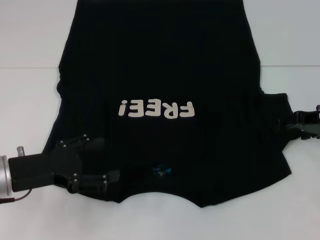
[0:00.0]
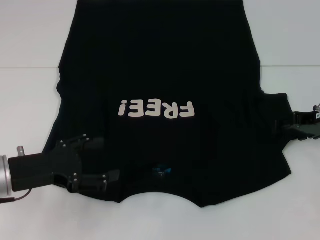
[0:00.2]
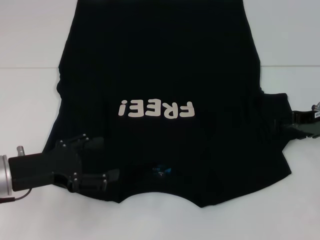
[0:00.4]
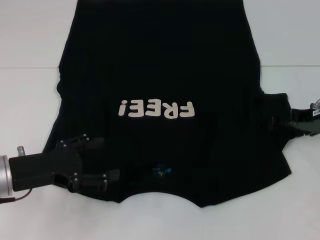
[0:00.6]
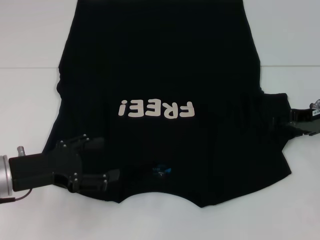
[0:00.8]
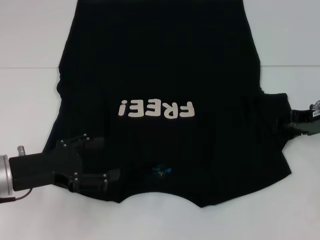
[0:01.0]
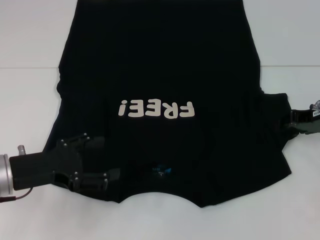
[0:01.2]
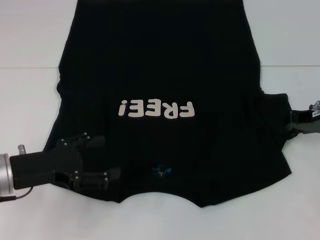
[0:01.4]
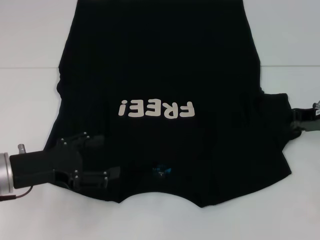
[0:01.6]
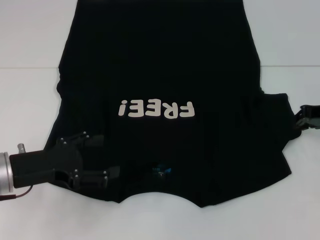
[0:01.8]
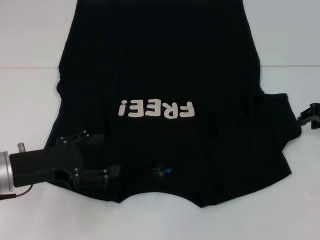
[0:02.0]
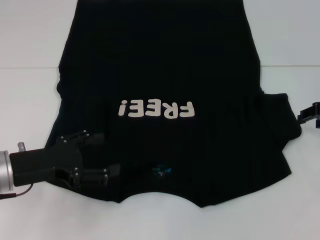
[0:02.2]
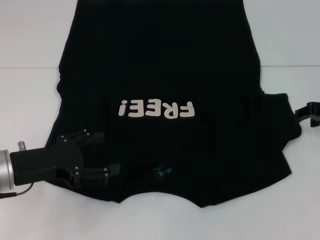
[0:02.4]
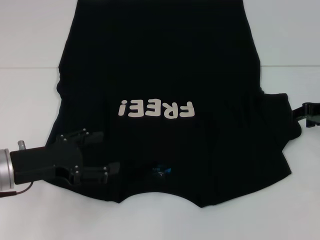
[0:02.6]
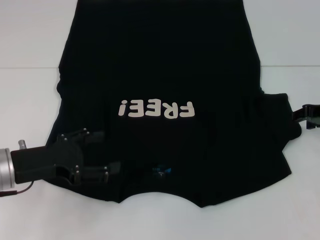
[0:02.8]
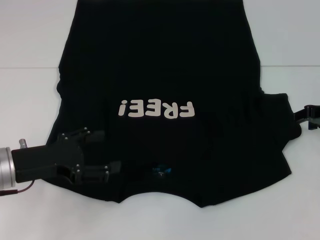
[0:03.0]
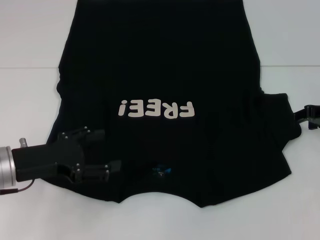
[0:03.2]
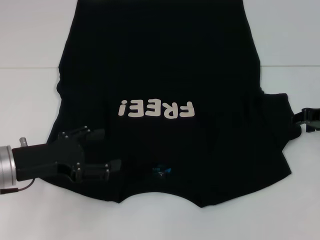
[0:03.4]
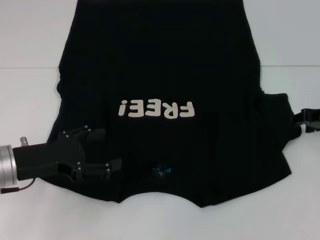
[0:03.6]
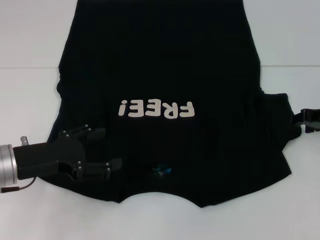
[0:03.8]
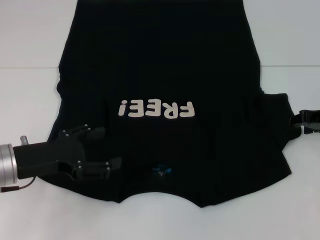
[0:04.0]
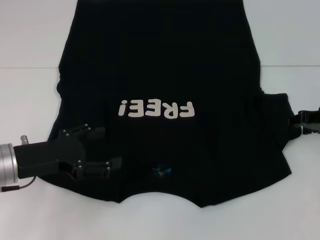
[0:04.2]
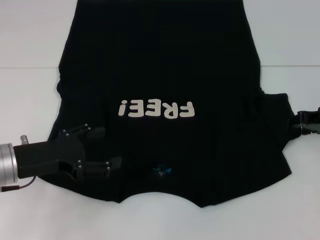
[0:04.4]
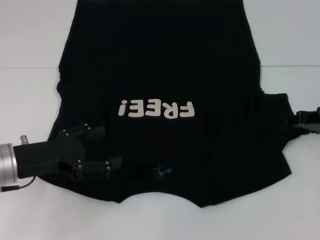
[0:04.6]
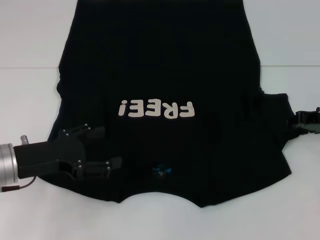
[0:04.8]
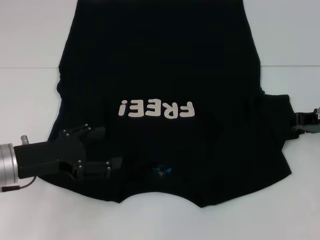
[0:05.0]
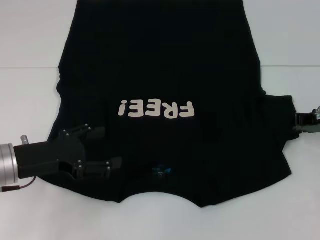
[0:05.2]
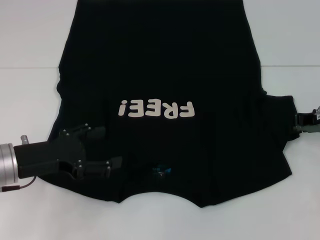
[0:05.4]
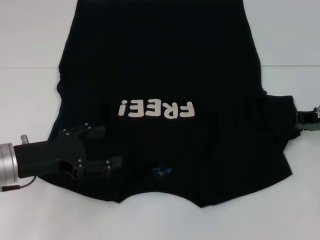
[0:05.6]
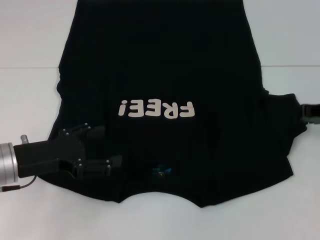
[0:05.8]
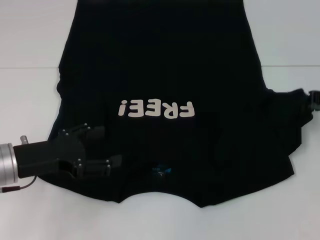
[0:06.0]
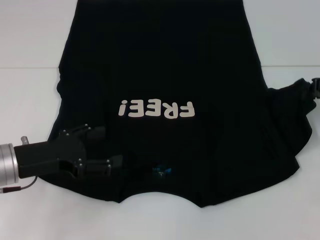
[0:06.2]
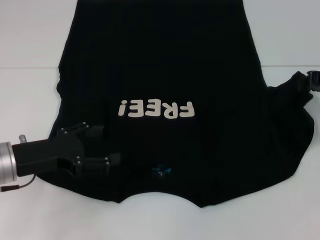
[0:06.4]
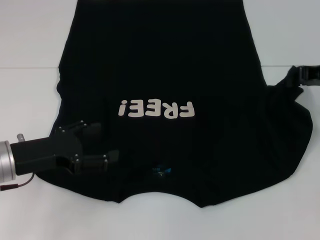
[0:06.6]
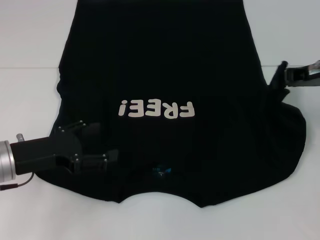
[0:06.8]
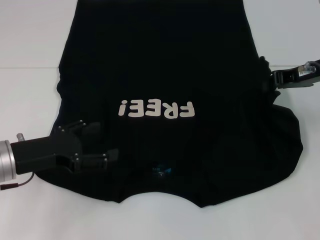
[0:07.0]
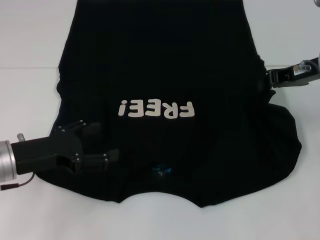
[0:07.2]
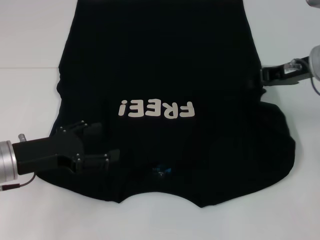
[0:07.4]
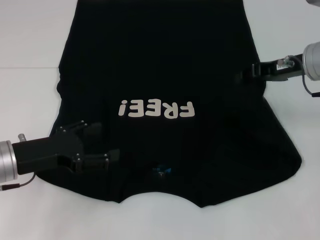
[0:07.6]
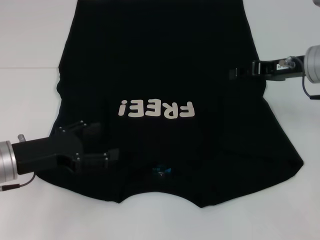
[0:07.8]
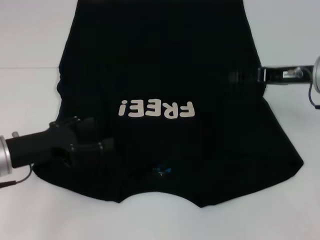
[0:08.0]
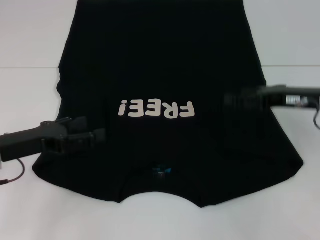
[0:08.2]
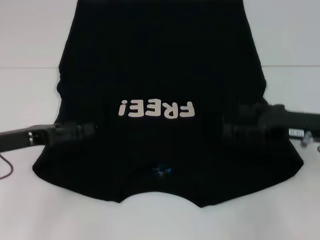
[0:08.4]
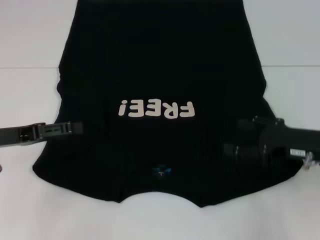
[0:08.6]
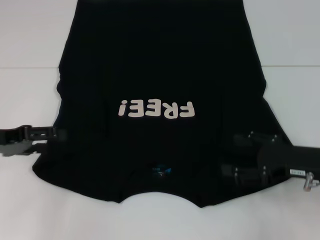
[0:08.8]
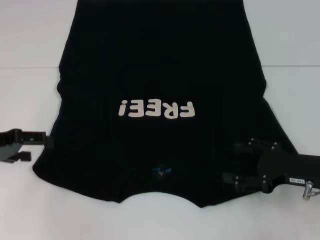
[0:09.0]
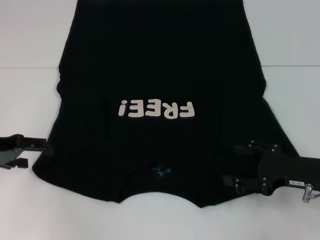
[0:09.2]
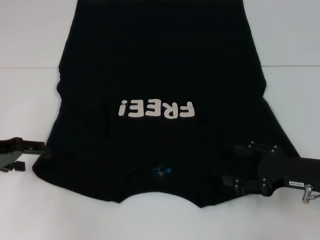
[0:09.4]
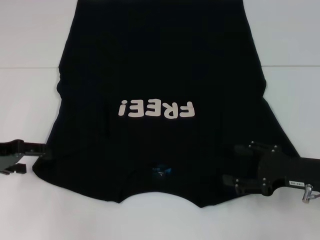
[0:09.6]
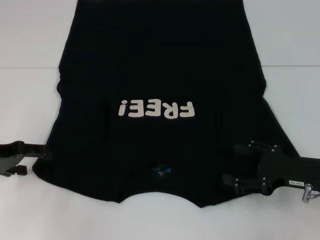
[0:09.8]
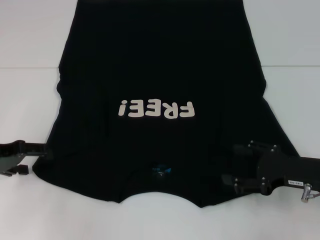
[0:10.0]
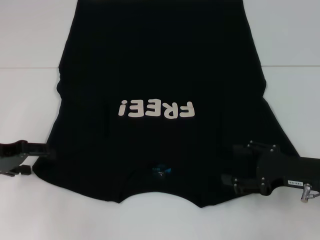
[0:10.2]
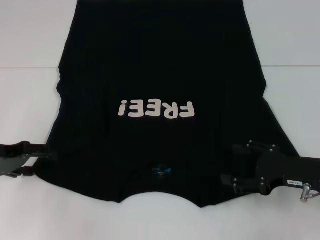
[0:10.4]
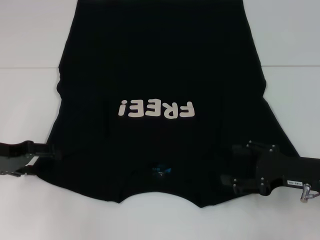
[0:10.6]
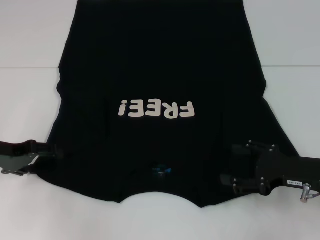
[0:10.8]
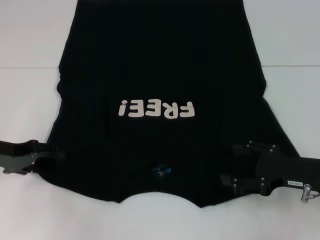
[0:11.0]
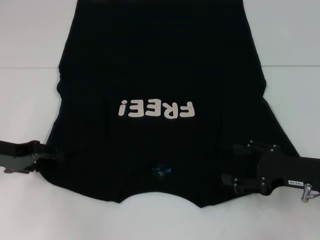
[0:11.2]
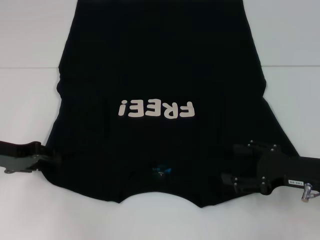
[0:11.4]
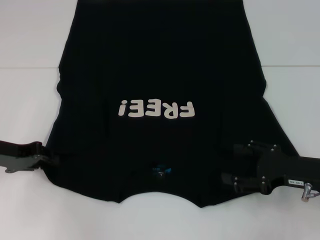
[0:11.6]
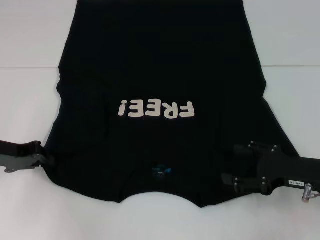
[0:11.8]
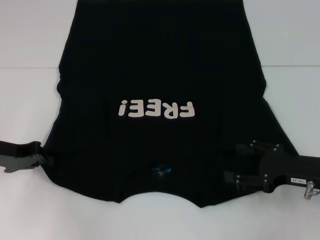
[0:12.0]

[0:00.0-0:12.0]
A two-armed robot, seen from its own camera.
Step, 0:00.0 to 0:07.6: Fold the bottom right sleeve with your right hand.
Step, 0:07.8 to 0:12.0: Grab the bottom left corner with your left hand.
0:03.0 to 0:04.4: The grippers make only small movements.
0:04.4 to 0:06.0: The right gripper closes its fingers.
0:06.0 to 0:07.6: The right gripper is displaced to the left by some 10 cm.
0:07.6 to 0:09.0: The left gripper heads to the left, covering some 10 cm, while the right gripper moves backward and downward, roughly 15 cm, and opens up.
0:09.0 to 0:10.4: The grippers stay close to where they were, moving slightly.
0:10.4 to 0:12.0: The left gripper closes.

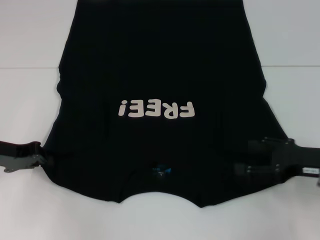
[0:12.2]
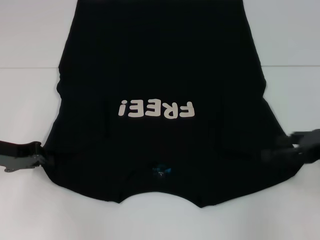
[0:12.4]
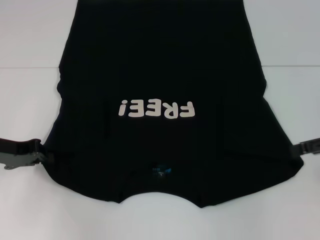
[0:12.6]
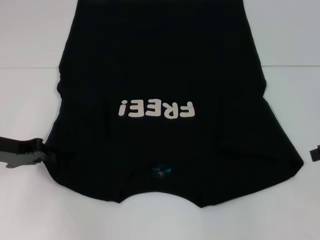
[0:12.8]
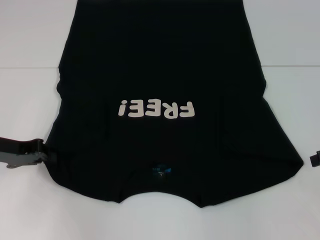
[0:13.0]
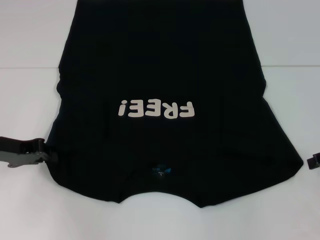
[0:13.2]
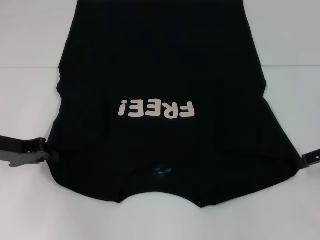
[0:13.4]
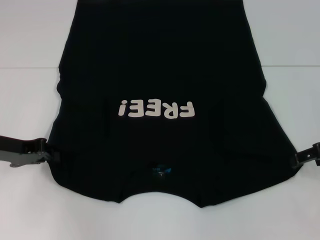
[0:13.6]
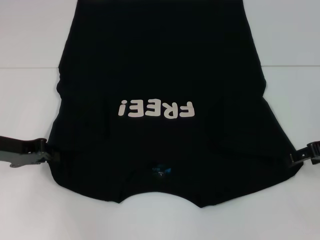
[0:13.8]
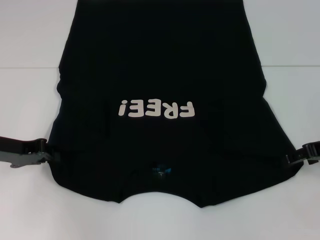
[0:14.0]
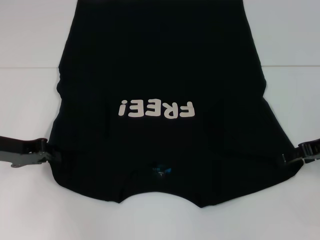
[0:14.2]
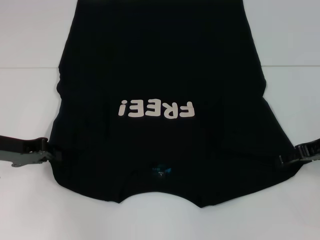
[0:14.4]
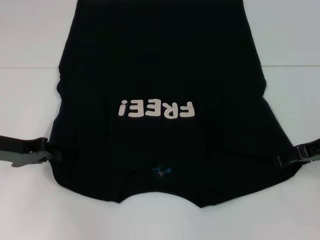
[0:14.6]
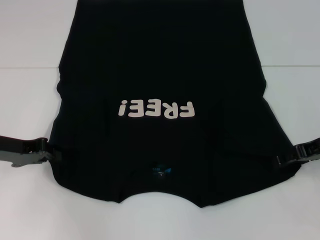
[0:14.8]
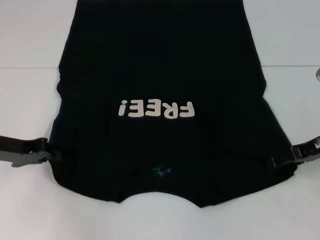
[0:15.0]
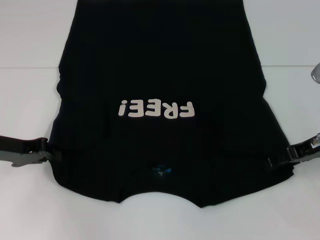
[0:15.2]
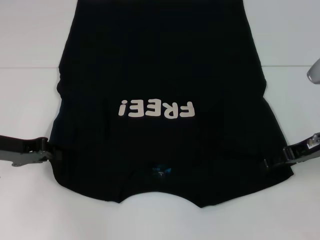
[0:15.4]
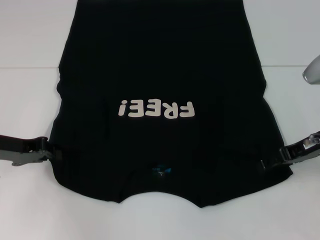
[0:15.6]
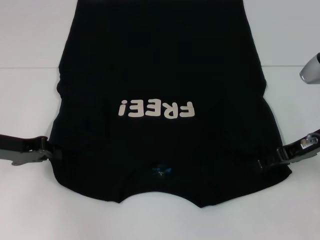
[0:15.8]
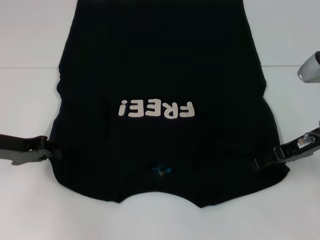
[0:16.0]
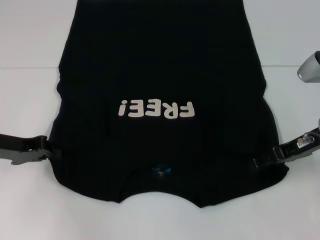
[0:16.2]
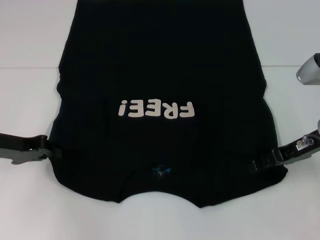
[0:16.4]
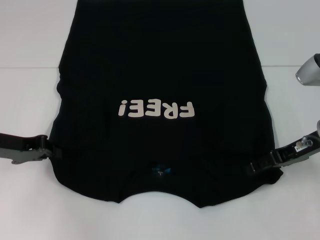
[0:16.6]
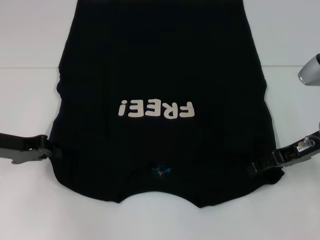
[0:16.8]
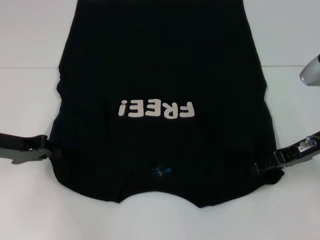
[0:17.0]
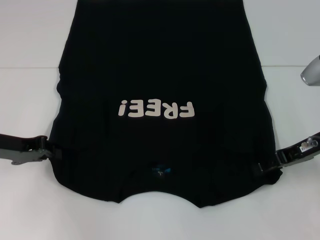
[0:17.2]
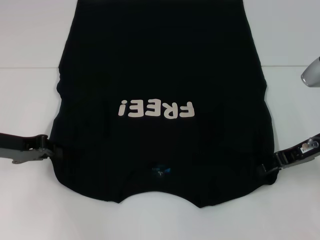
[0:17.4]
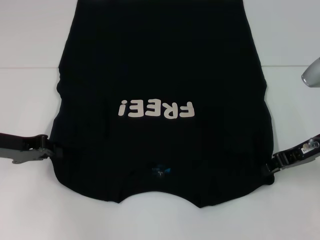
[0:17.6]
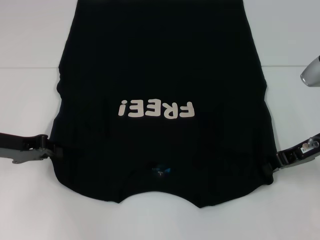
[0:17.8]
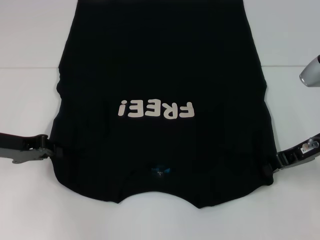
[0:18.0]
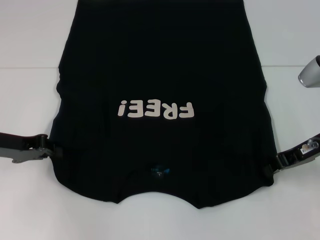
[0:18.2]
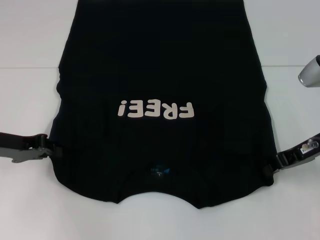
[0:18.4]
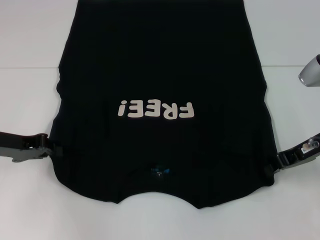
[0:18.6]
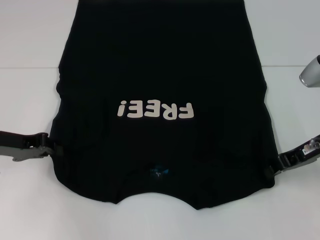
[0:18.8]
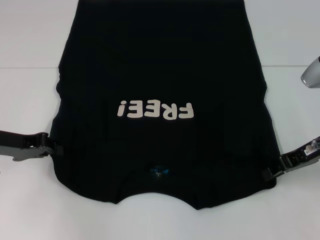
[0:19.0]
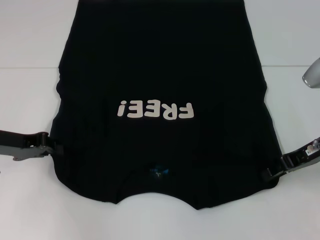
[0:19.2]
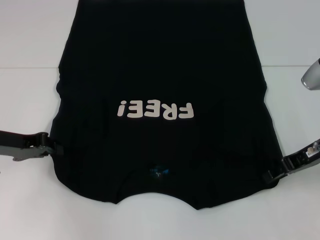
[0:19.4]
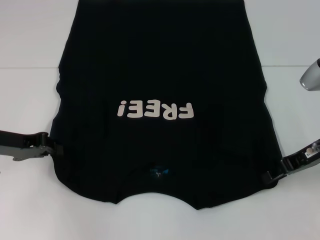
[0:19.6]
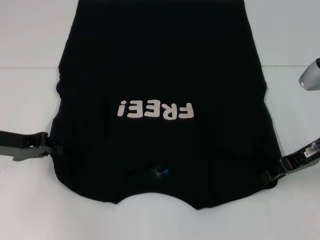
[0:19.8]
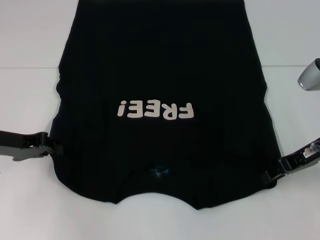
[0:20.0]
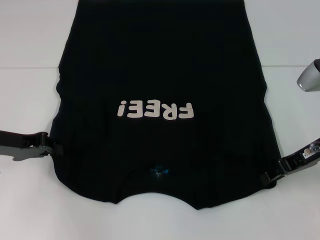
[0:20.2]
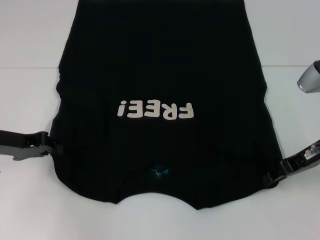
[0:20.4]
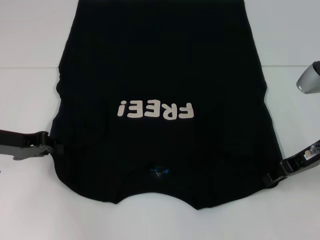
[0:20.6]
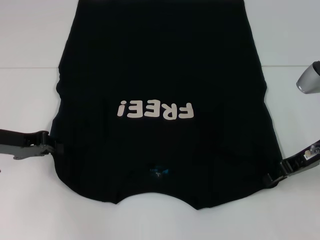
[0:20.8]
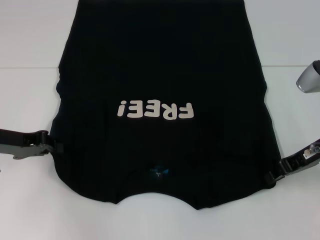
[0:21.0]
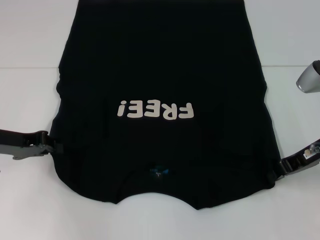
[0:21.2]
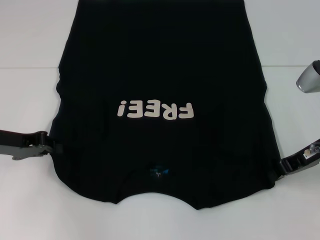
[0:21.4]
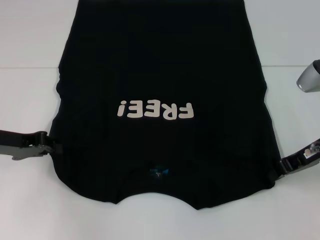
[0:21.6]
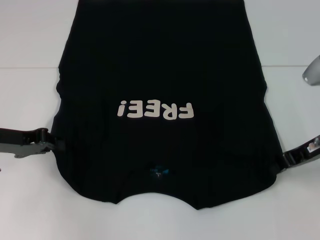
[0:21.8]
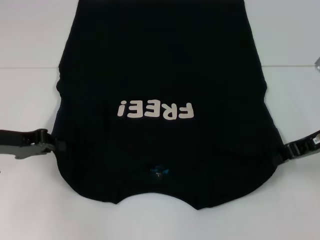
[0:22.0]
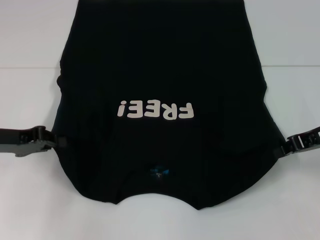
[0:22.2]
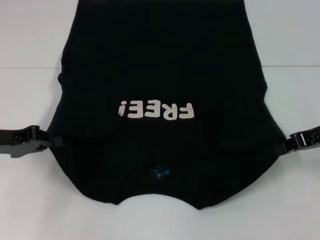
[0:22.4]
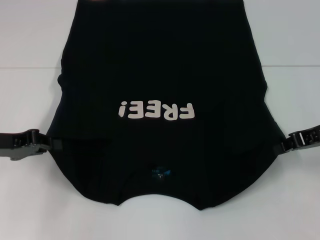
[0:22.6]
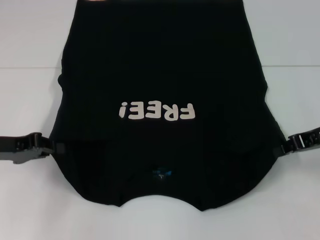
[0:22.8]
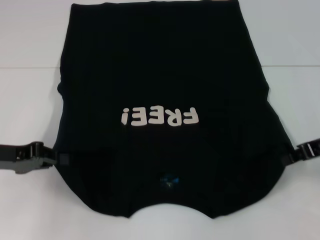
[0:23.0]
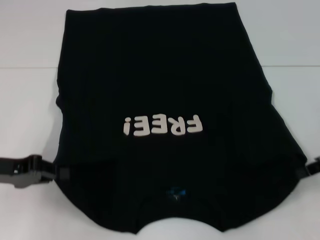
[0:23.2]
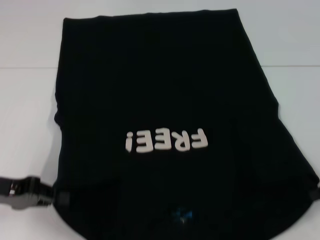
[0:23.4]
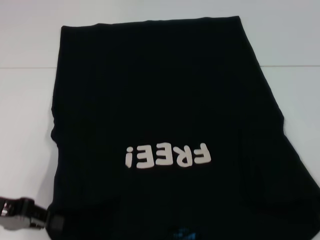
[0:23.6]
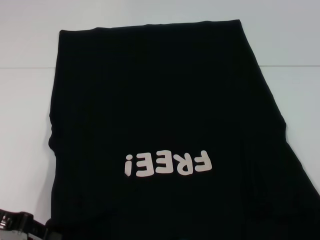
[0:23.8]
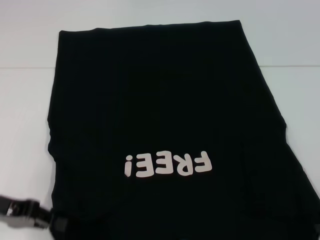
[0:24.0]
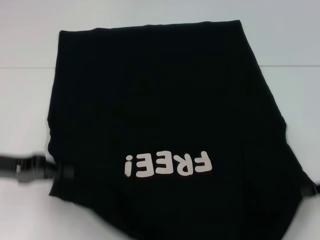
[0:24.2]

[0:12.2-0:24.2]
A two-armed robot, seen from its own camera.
Step, 0:12.2 to 0:18.0: Grab the bottom right corner with your right hand.
0:12.2 to 0:13.8: The right gripper goes about 5 cm forward.
0:13.8 to 0:16.6: There are only small adjustments of the grippers.
0:16.6 to 0:18.2: The right gripper closes.
0:18.2 to 0:19.8: The right gripper opens its fingers.
0:19.8 to 0:21.2: Neither gripper changes place.
0:21.2 to 0:22.6: There are only small adjustments of the grippers.
0:22.6 to 0:24.2: The right gripper heads backward and to the right, covering about 10 cm.
